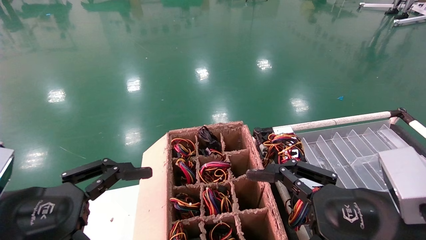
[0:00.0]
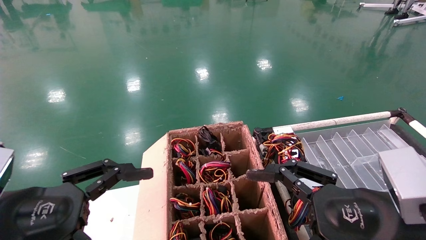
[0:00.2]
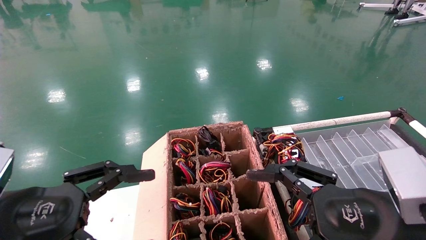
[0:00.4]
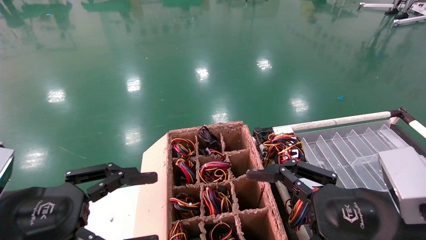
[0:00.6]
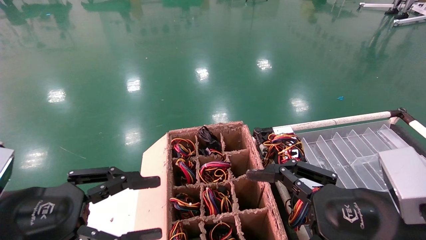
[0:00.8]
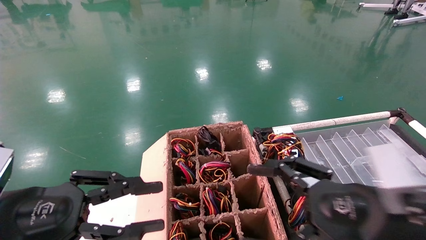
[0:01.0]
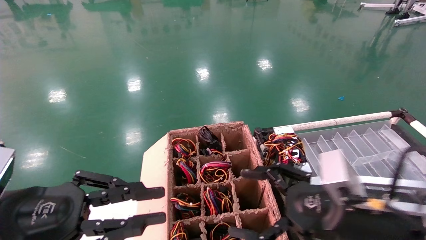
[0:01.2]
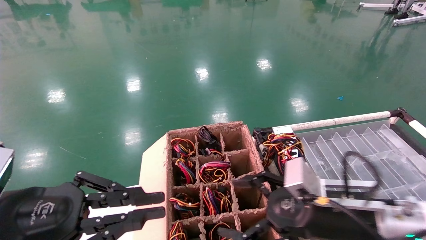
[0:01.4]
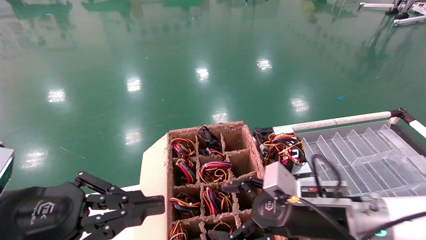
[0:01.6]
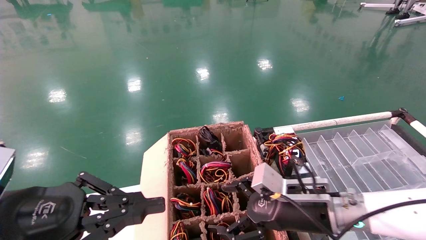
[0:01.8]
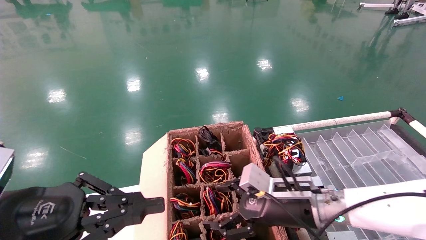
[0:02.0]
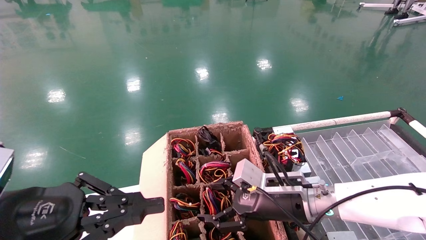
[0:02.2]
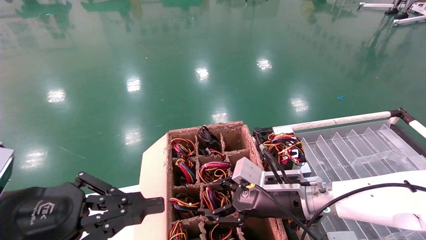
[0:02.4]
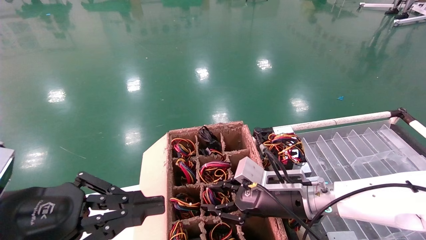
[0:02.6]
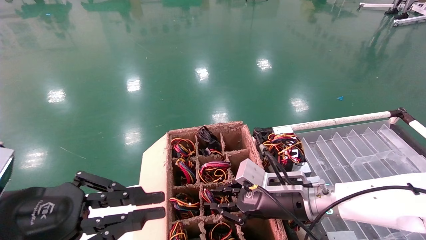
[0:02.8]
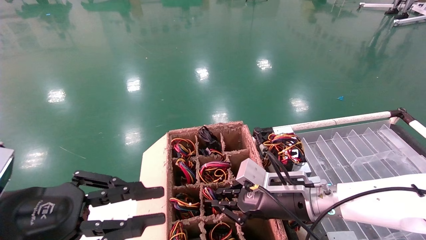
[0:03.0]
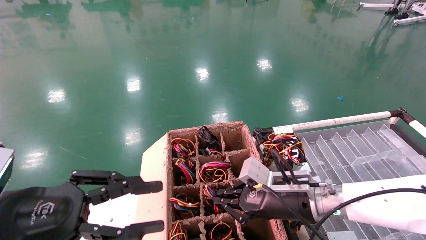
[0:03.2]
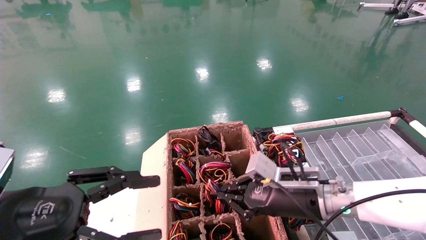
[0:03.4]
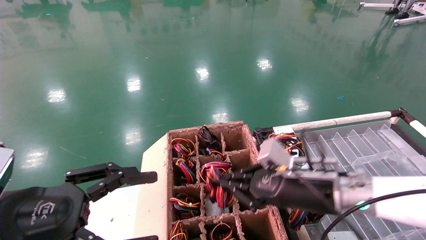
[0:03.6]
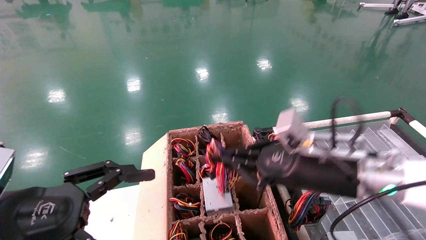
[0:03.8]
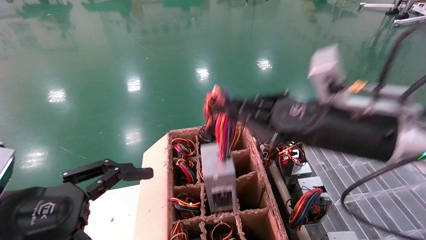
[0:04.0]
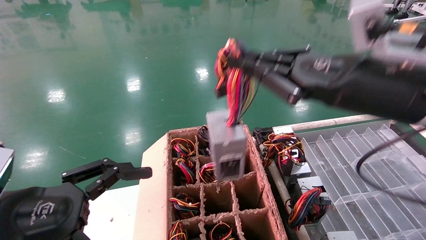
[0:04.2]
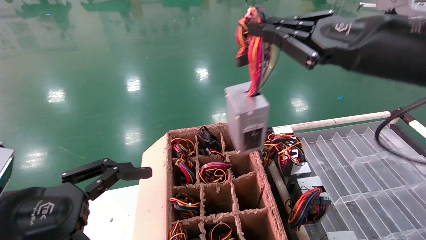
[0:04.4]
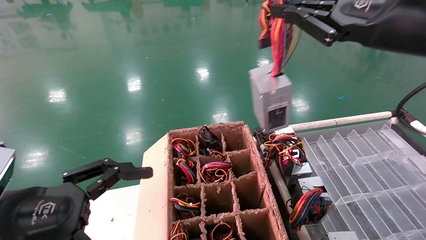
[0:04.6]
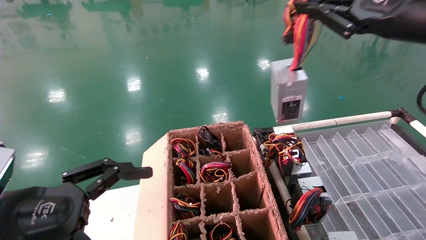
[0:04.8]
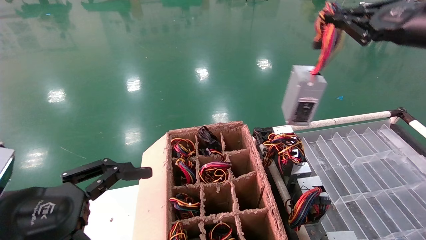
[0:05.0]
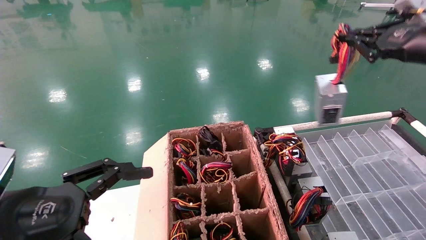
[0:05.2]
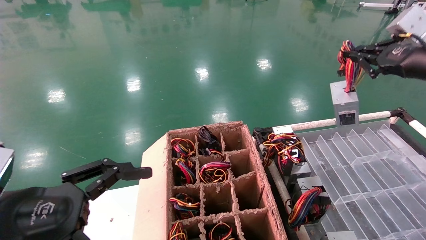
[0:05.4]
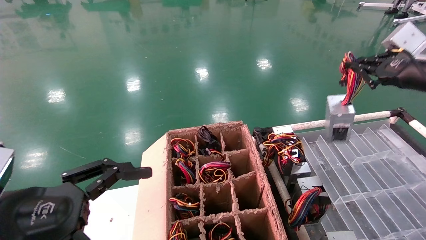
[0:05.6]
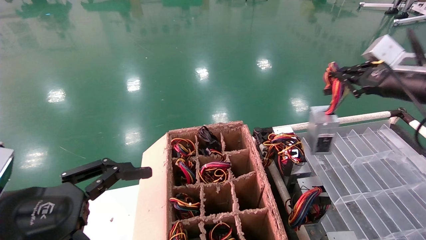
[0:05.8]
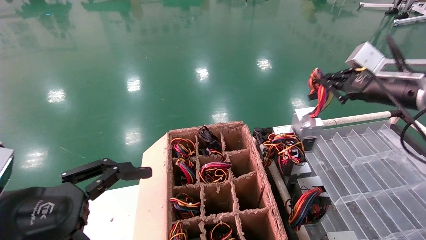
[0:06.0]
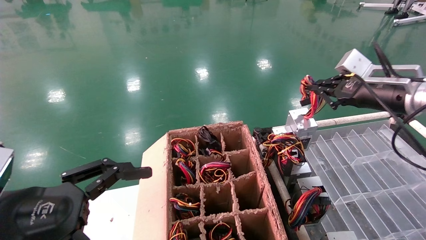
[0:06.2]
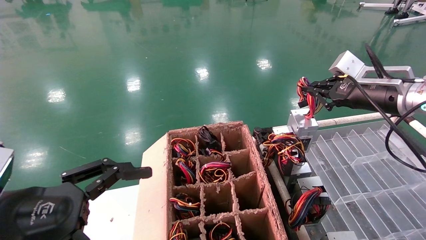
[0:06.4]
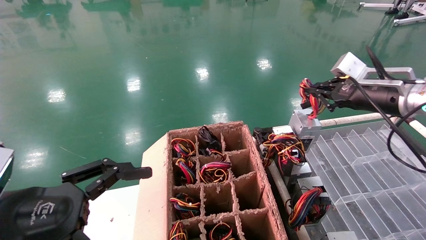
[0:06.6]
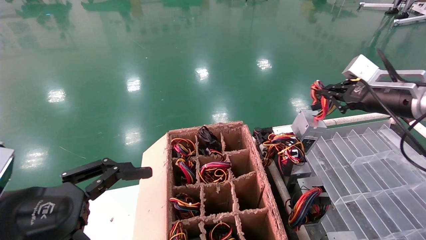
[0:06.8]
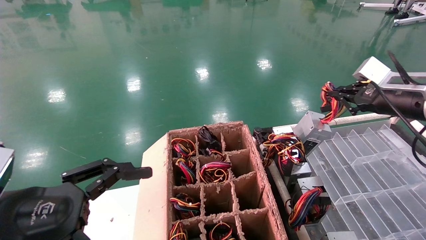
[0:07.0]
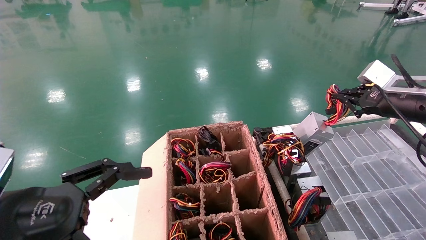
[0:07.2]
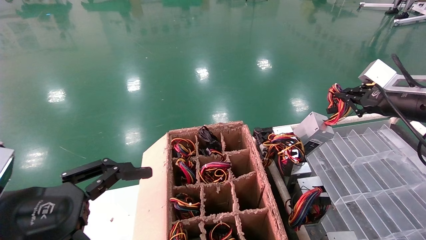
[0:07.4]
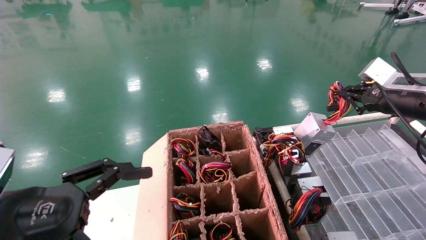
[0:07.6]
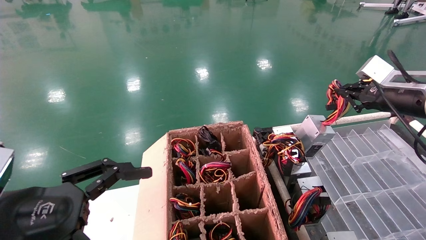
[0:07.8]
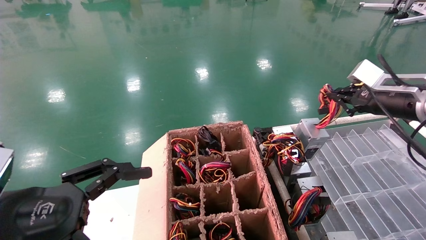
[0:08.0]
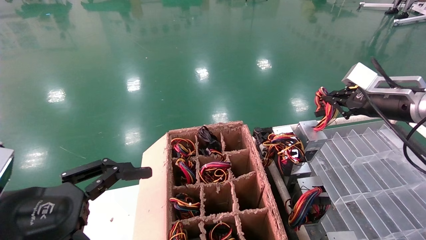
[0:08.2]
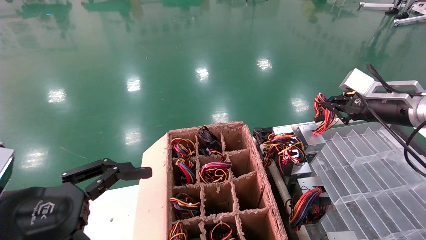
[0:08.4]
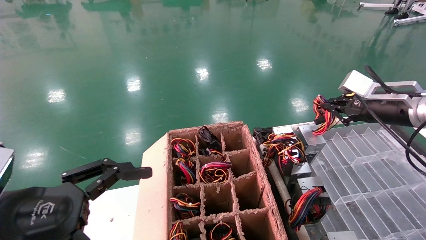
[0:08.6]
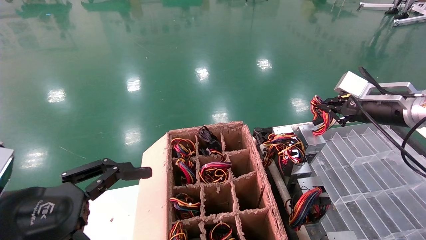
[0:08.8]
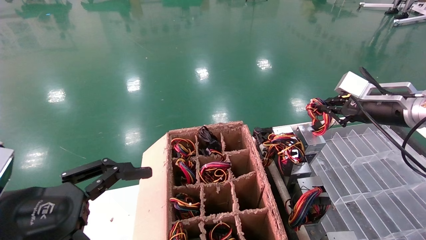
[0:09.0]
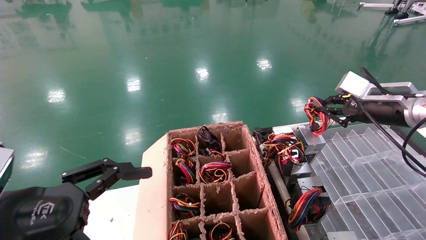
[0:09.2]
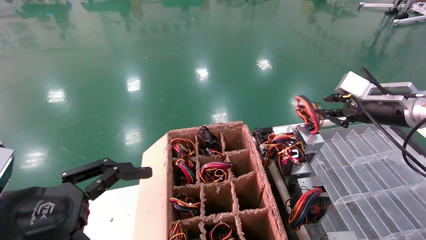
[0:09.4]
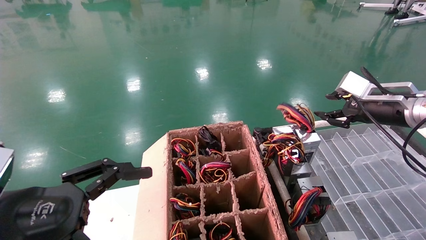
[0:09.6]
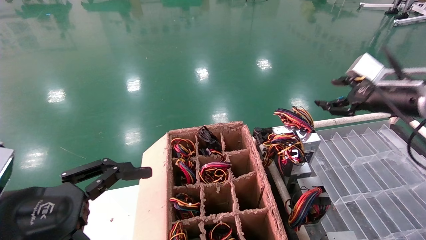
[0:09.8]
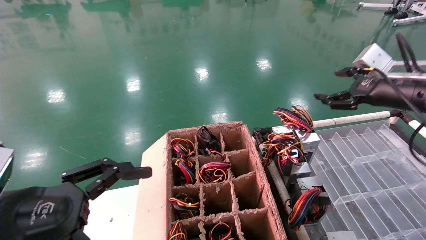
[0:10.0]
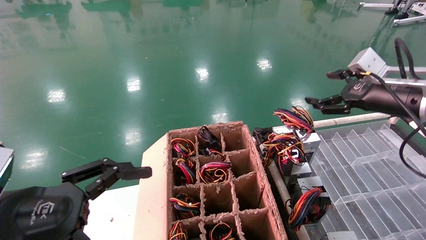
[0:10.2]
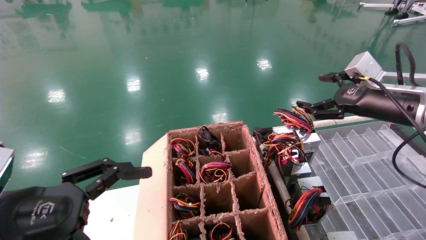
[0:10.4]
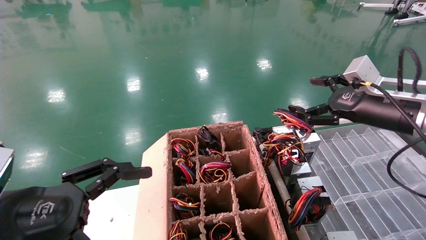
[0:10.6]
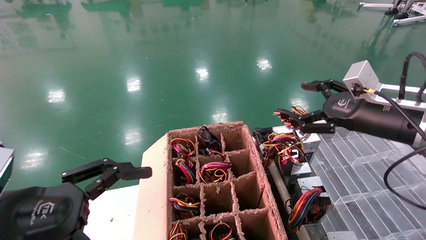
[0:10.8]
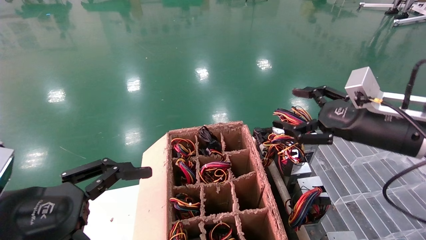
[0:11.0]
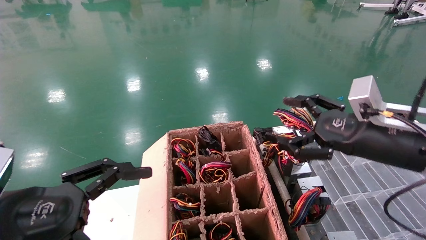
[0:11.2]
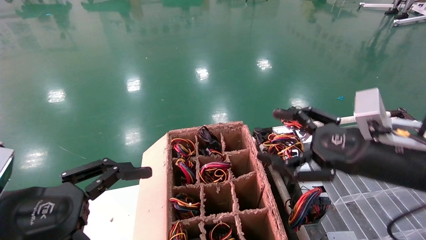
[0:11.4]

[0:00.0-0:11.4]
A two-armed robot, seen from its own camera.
Step, 0:00.8 to 0:03.0: Grab and lift the power supply from the large box.
Step, 0:03.2 to 0:09.0: Place the power supply on the operating table.
0:00.0 to 0:01.4: The left gripper closes; the right gripper travels forward by about 10 cm.
0:01.4 to 0:02.8: The right gripper is displaced forward by some 10 cm, and closes its fingers.
0:02.8 to 0:04.2: The left gripper opens its fingers. Meanwhile the right gripper shifts roughly 25 cm upward and backward, and closes its fingers.
0:04.2 to 0:05.6: The right gripper heads to the right and forward, covering about 20 cm.
0:05.6 to 0:07.2: The right gripper heads downward, covering approximately 5 cm.
0:07.2 to 0:08.6: There are only small adjustments of the grippers.
0:08.6 to 0:10.0: The right gripper opens up.
0:10.0 to 0:11.4: The right gripper shifts about 15 cm backward, to the left and downward.
